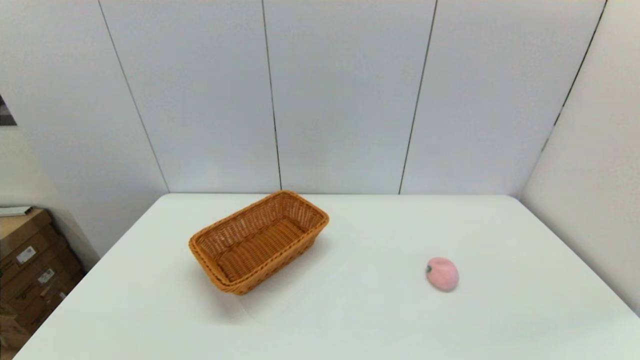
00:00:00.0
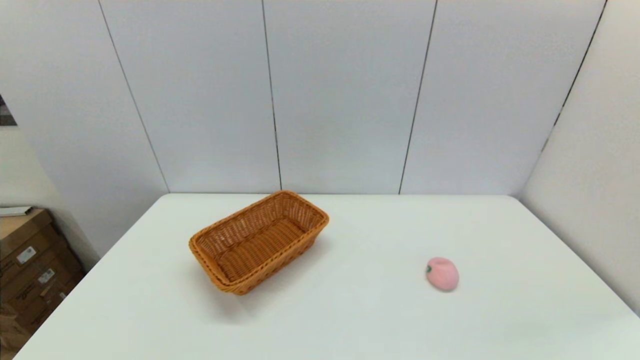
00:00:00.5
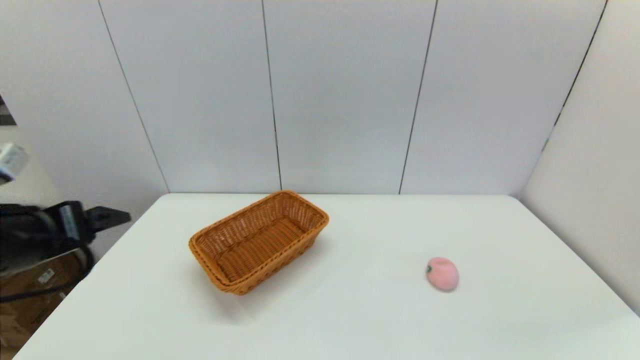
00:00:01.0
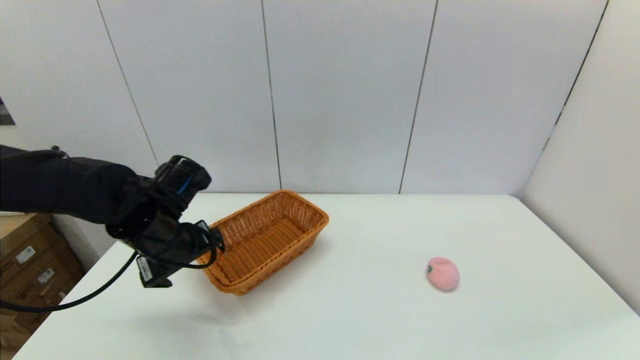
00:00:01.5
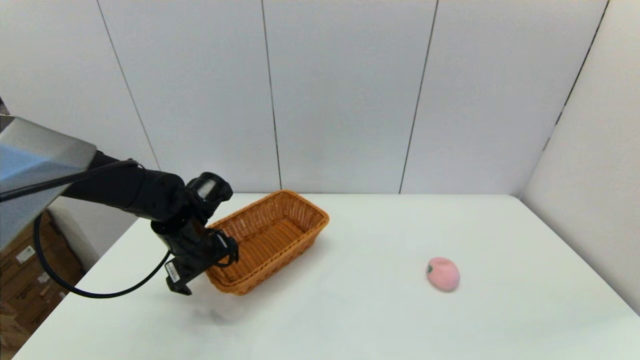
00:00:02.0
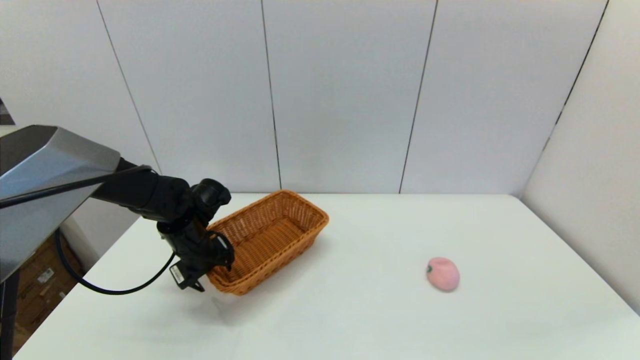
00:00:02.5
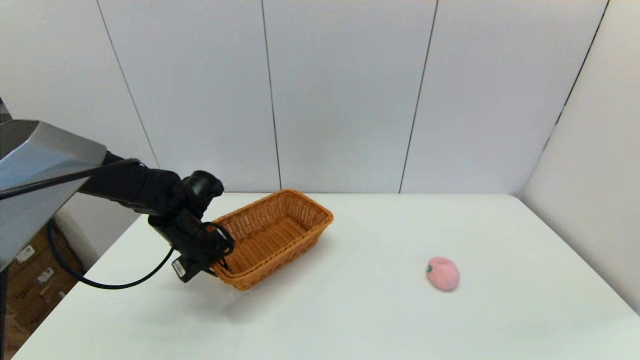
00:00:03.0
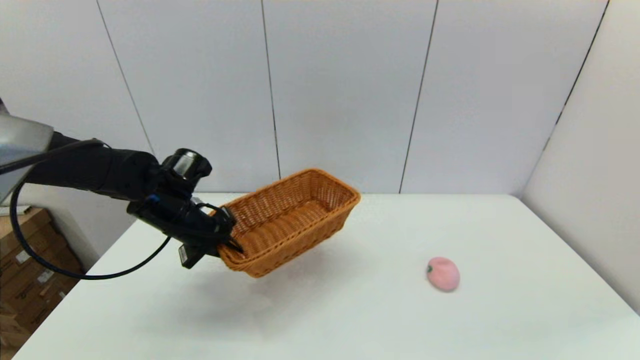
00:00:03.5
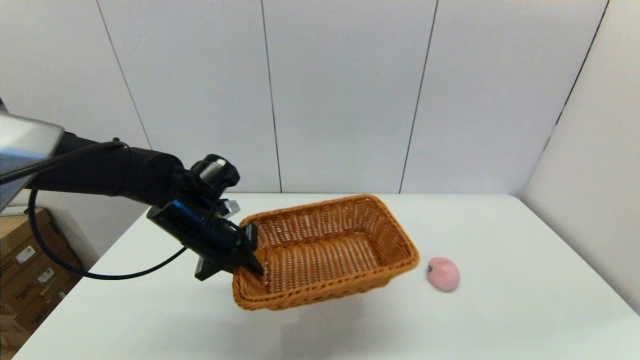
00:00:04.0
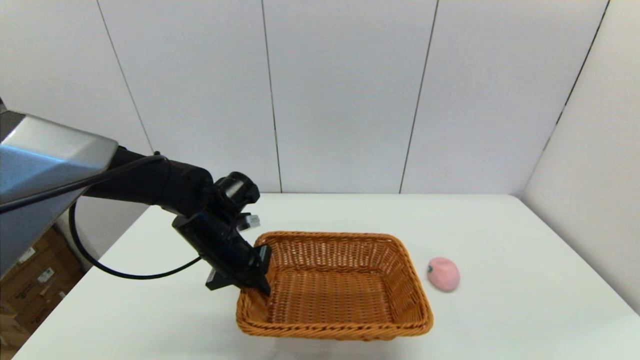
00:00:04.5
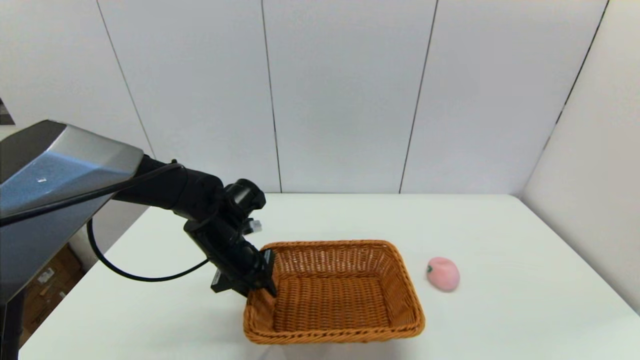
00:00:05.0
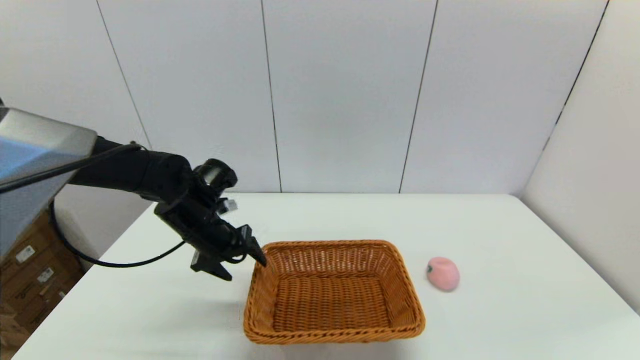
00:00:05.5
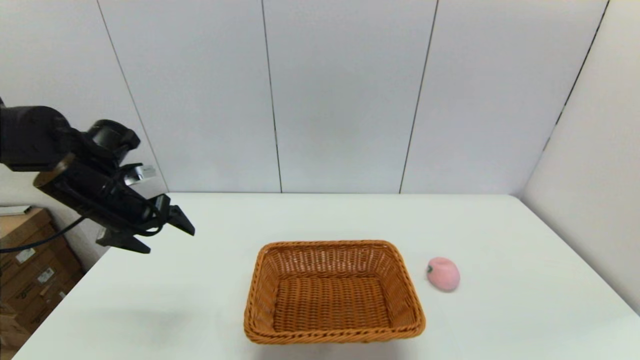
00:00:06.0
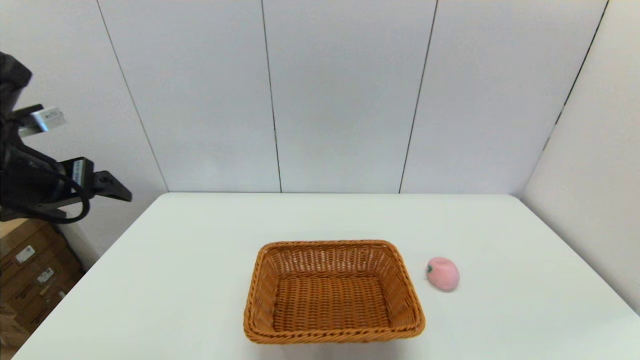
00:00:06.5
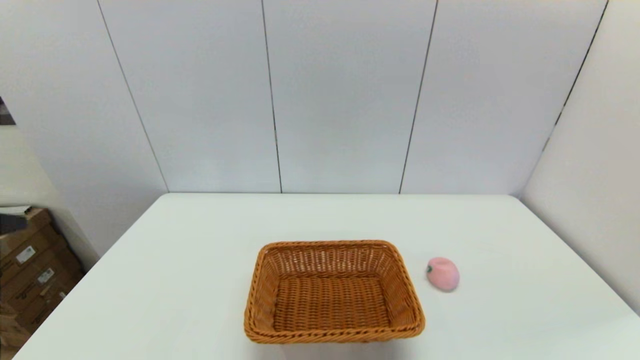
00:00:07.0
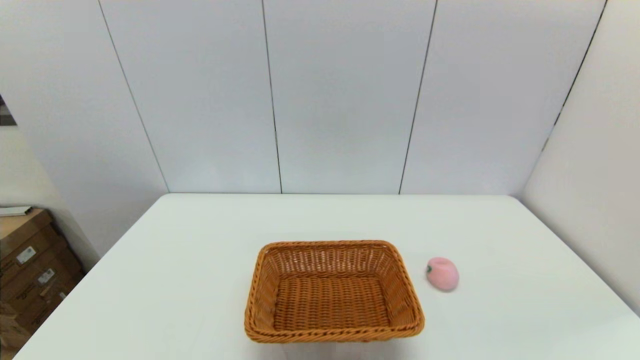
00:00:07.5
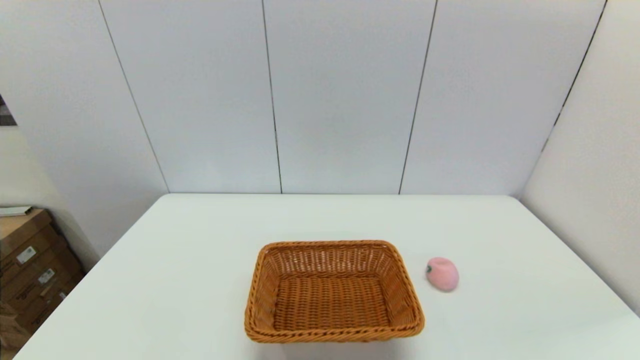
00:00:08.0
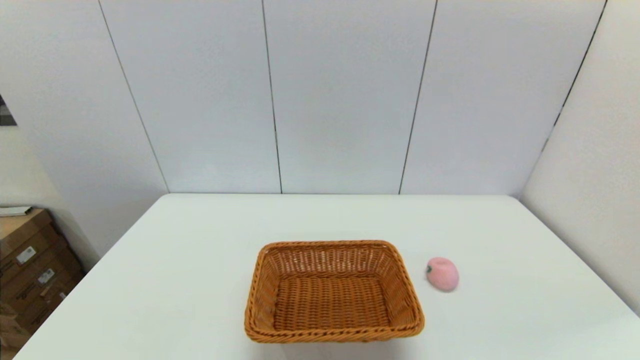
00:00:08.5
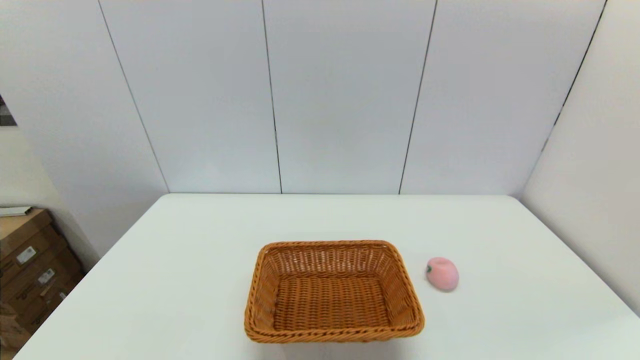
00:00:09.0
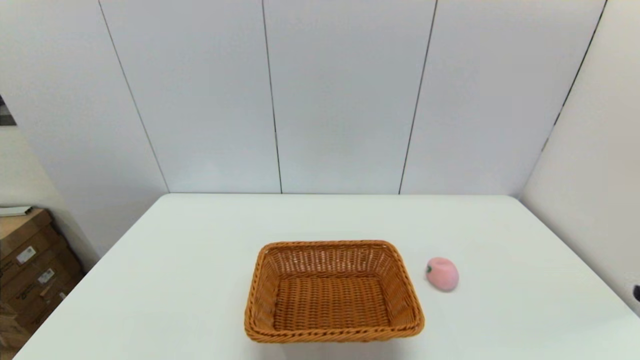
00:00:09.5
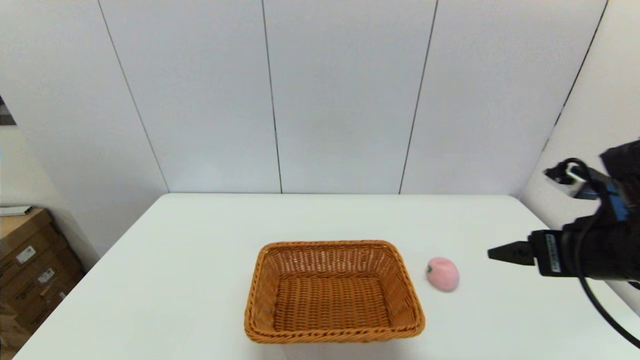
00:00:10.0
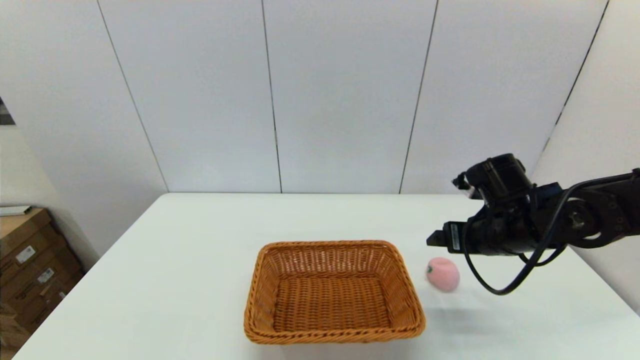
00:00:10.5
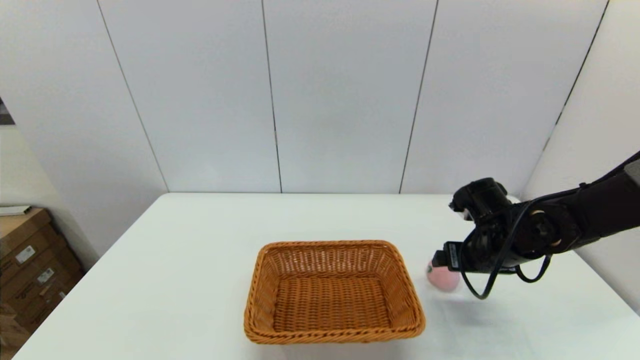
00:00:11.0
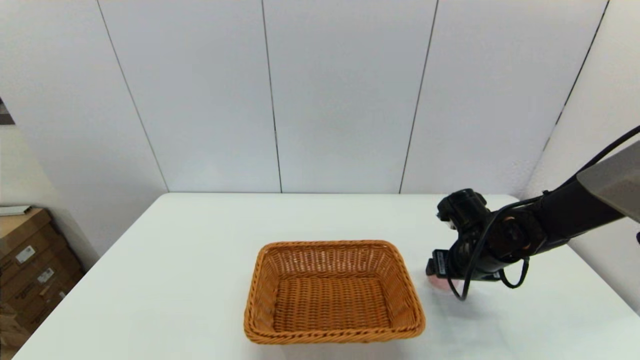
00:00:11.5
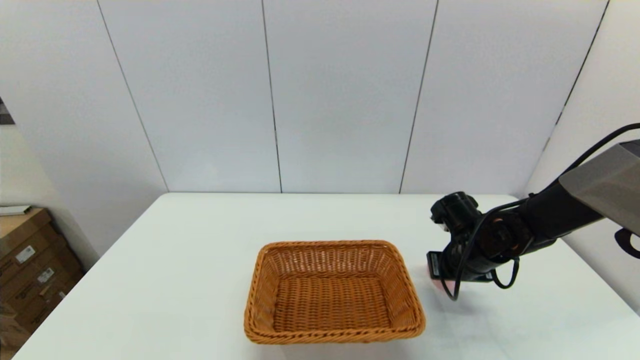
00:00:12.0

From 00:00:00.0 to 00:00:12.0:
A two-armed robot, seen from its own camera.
Step, from 00:00:00.0 to 00:00:03.0: Grasp the light basket with the left gripper.
Step, from 00:00:03.5 to 00:00:05.0: Place the light basket on the middle of the table with the left gripper.
From 00:00:00.0 to 00:00:02.0: The left gripper shifts approximately 35 cm forward.
From 00:00:02.0 to 00:00:04.0: The left gripper shifts by some 5 cm, and closes its fingers.
From 00:00:04.0 to 00:00:06.0: The left gripper moves to the left and upward, approximately 15 cm, and opens.
From 00:00:06.0 to 00:00:08.0: The left gripper travels backward by approximately 35 cm.
From 00:00:08.0 to 00:00:10.0: The right gripper is displaced forward and upward by approximately 25 cm.
From 00:00:10.0 to 00:00:12.0: The right gripper moves downward and forward, about 20 cm, and closes up.

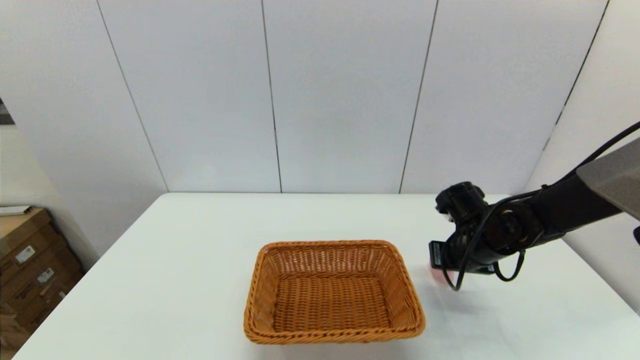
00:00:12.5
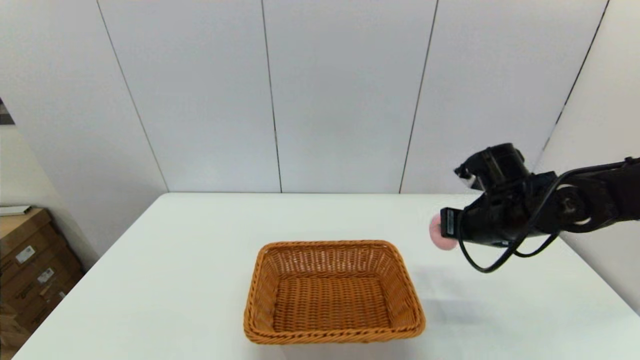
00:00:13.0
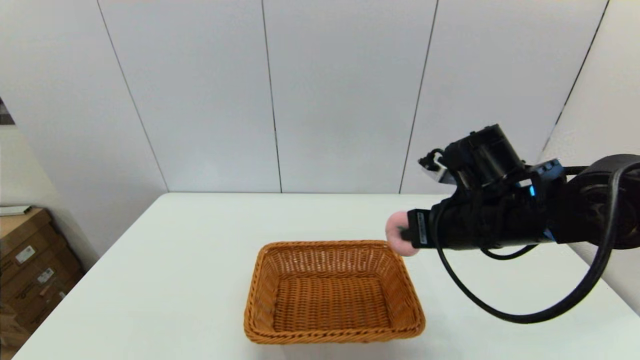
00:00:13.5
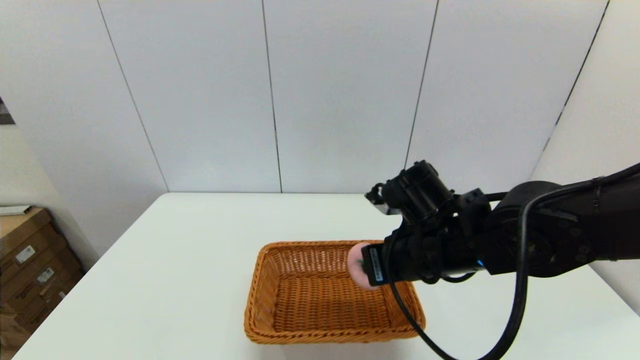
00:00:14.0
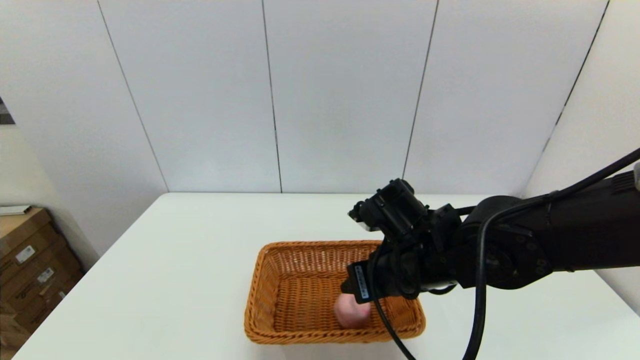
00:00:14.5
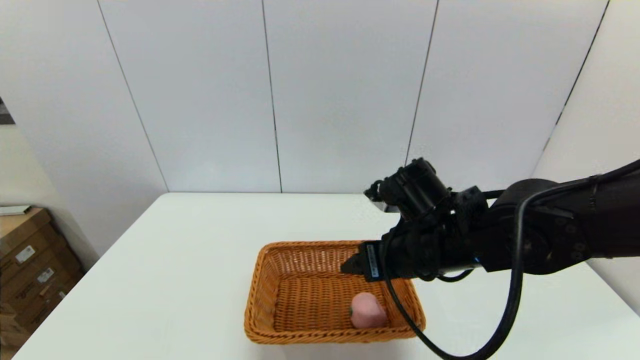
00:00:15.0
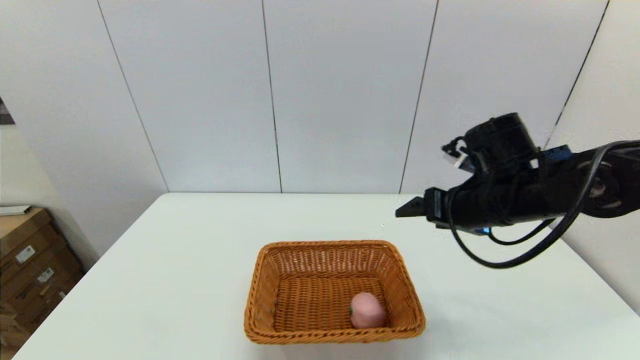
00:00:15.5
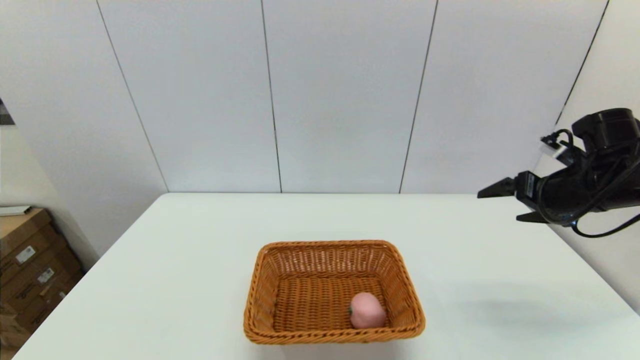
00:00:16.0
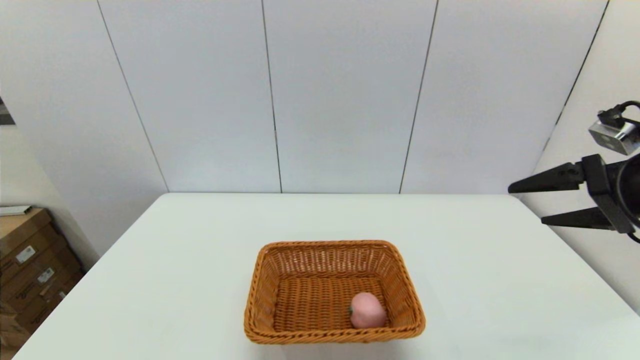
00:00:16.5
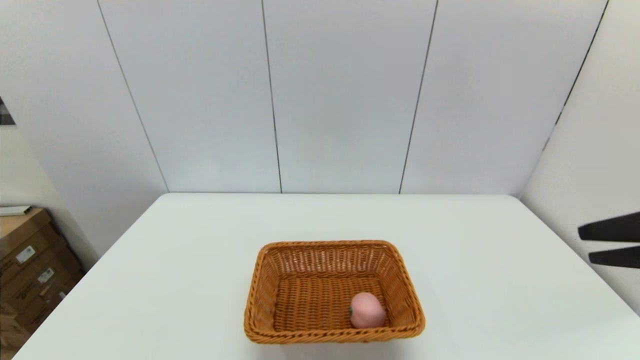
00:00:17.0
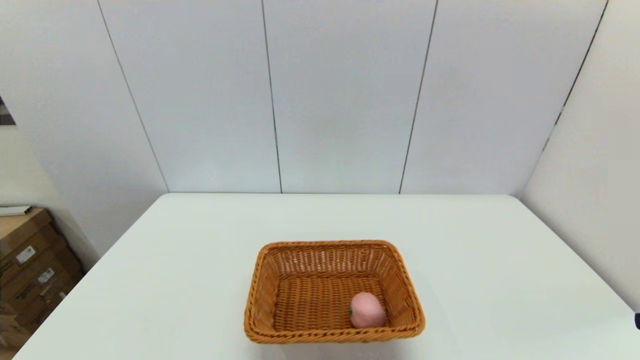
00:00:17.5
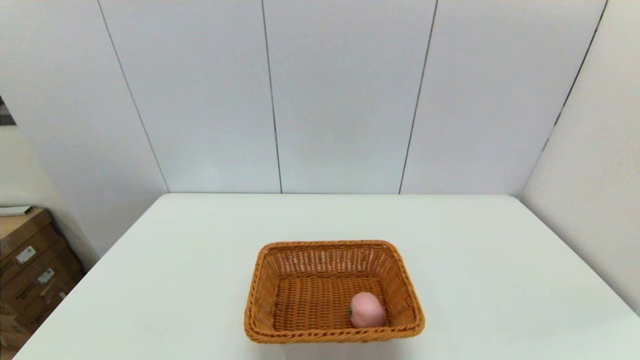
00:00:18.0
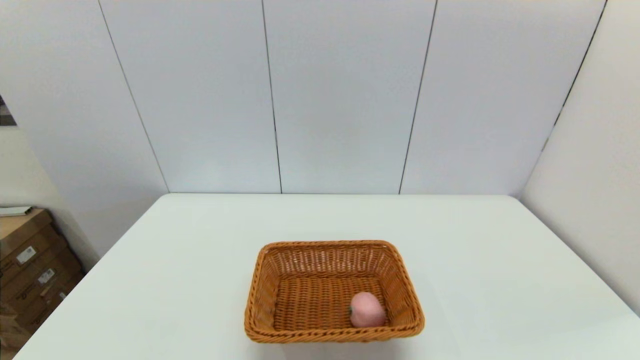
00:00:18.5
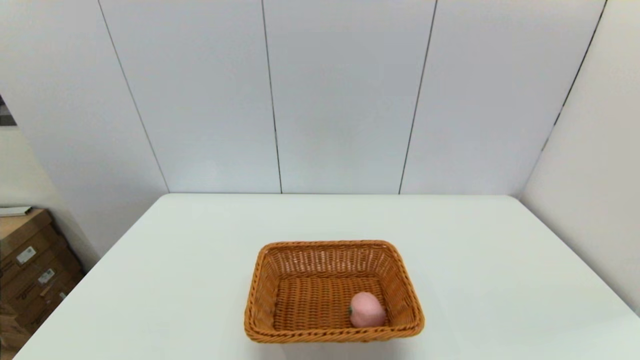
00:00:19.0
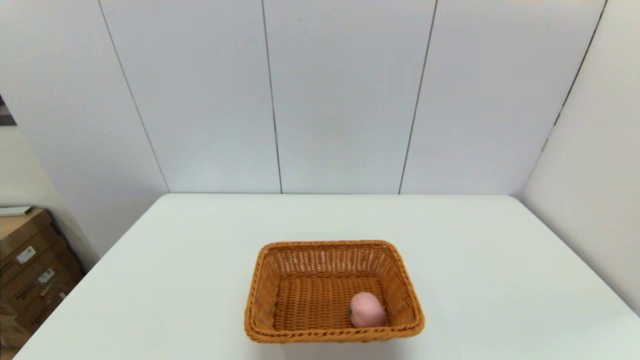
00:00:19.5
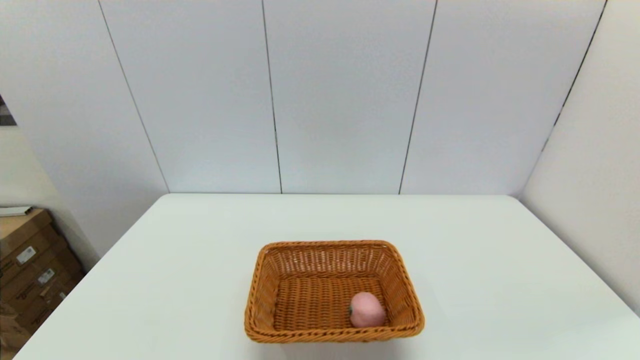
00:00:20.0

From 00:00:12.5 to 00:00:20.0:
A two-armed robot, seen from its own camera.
Step, from 00:00:12.5 to 00:00:14.5: Place the peach into the light basket with the right gripper.
From 00:00:12.5 to 00:00:14.5: The right gripper shifts about 20 cm to the left, backward and upward, and opens its fingers.
From 00:00:14.5 to 00:00:16.5: The right gripper is displaced to the right and upward by about 30 cm, and opens its fingers.
From 00:00:16.5 to 00:00:18.0: The right gripper goes roughly 25 cm backward.
